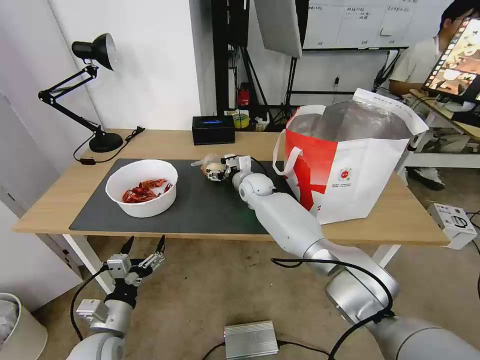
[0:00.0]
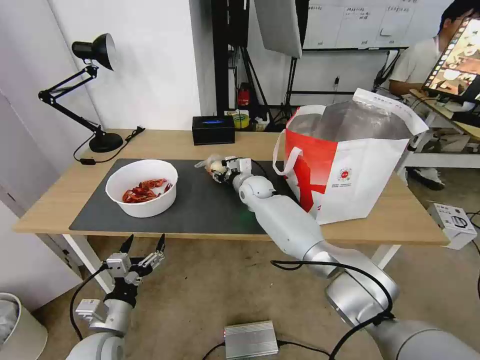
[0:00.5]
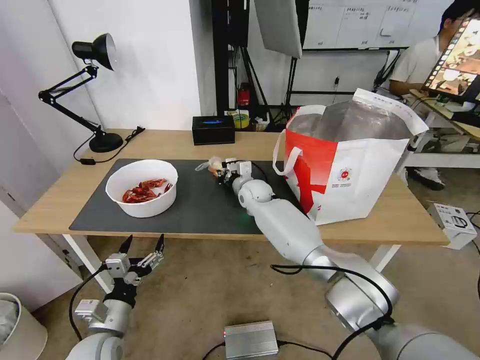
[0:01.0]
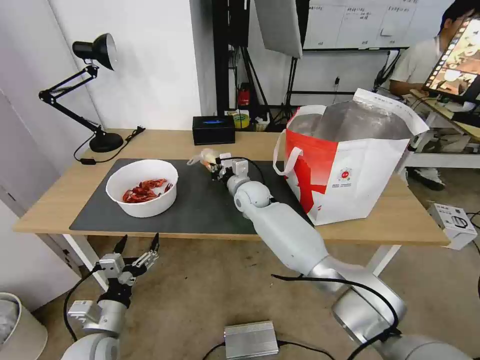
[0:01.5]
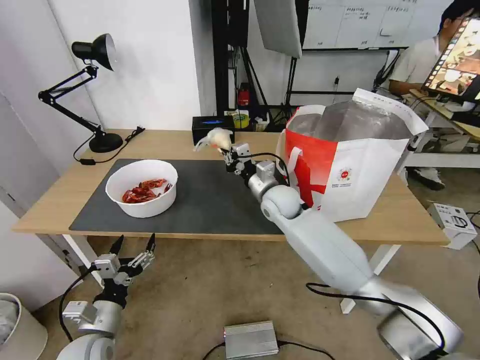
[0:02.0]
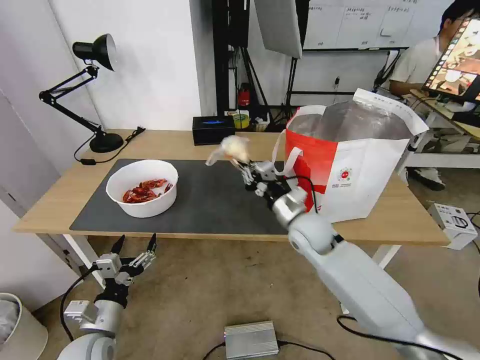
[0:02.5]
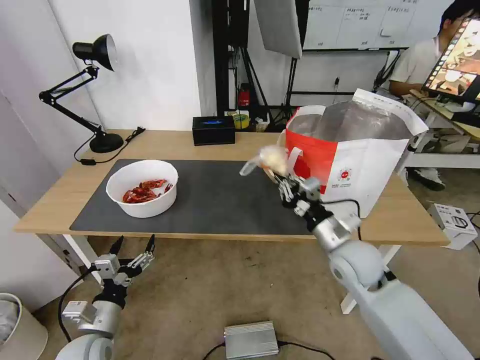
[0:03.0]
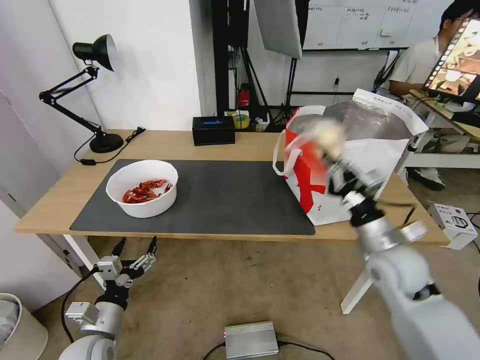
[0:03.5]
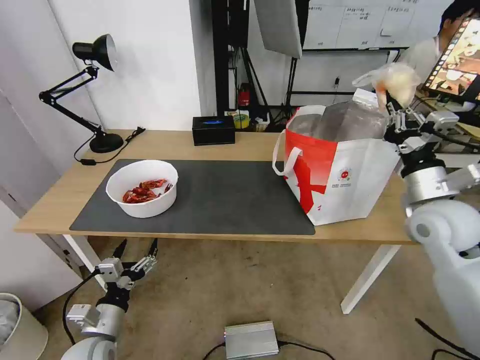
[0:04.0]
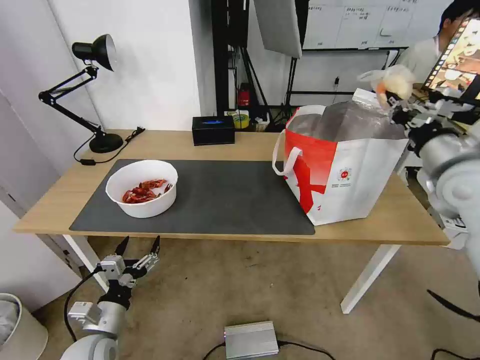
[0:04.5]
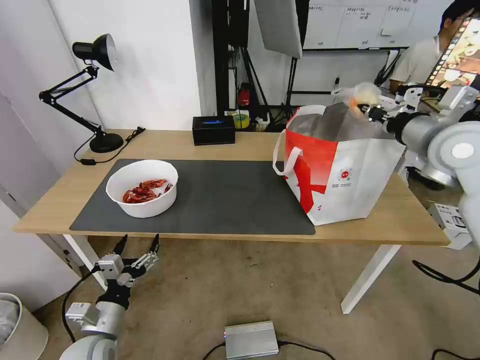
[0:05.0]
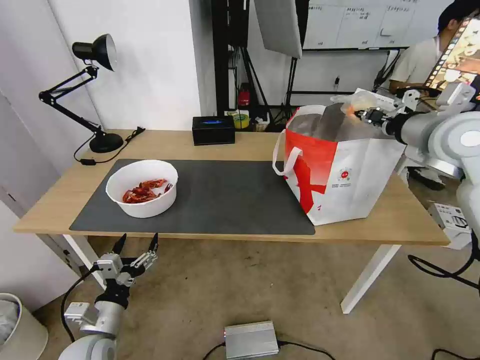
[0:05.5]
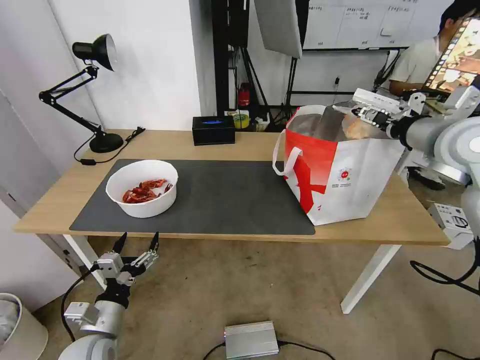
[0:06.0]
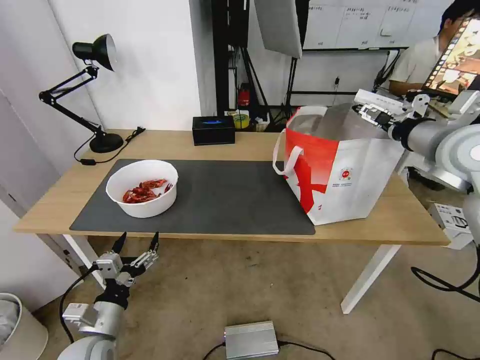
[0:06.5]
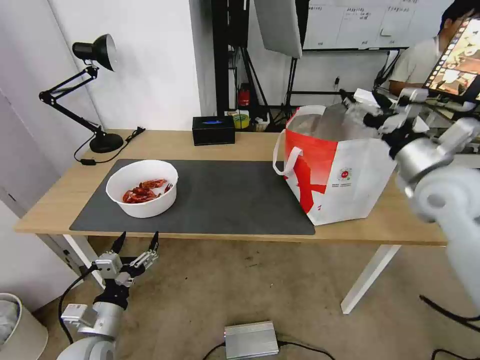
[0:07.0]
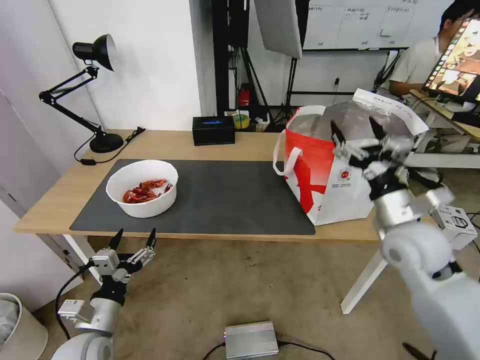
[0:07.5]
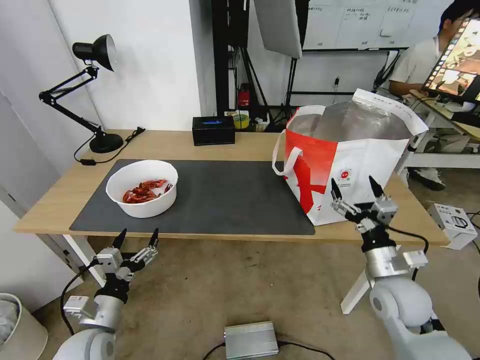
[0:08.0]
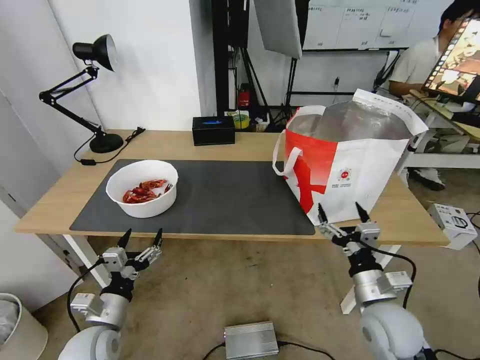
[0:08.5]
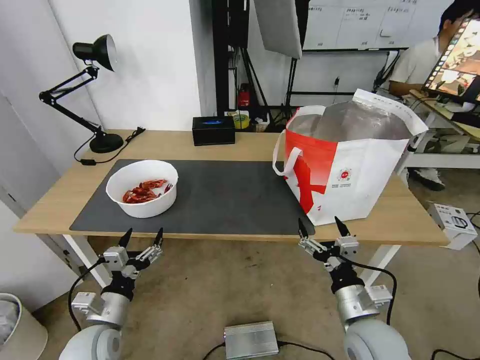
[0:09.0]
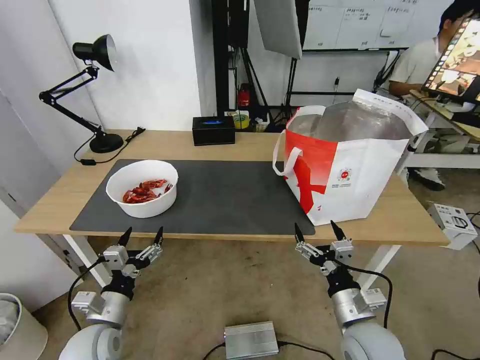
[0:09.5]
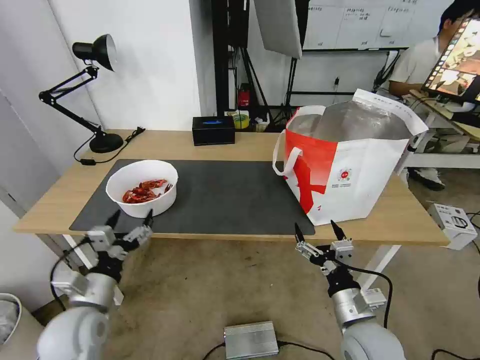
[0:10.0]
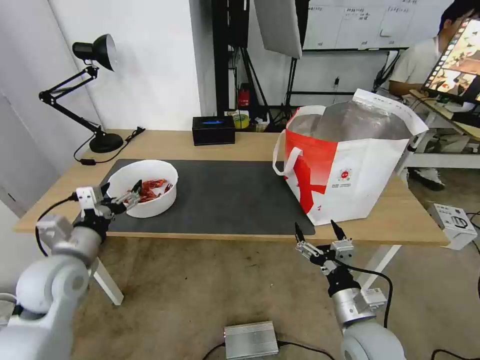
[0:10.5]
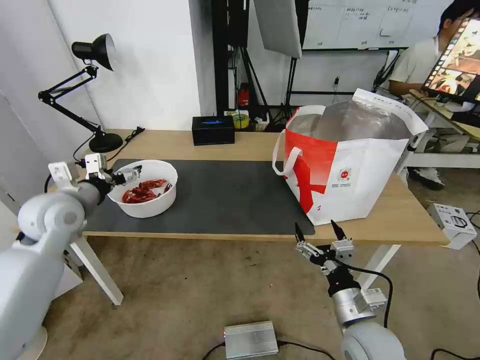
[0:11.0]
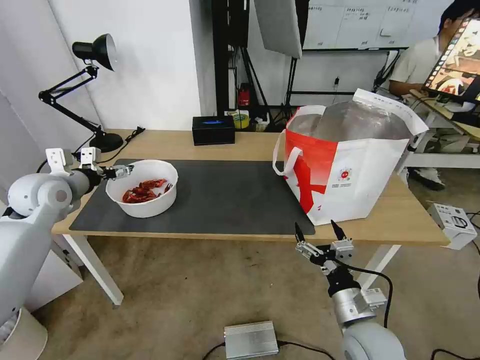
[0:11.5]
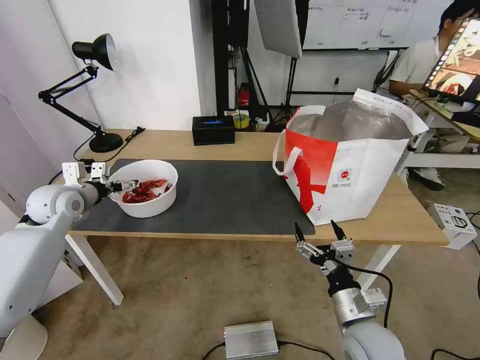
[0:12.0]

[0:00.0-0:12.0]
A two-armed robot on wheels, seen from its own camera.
Task of the whole recording: Pick up the trash from the table and place it into the takeout bag.
0:00.0 to 0:02.0: The right gripper shifts approximately 10 cm backward and to the right, and closes.
0:02.0 to 0:04.0: The right gripper moves to the right, backward and upward, roughly 30 cm.
0:04.0 to 0:06.0: The right gripper goes roughly 15 cm upward and forward, and opens up.
0:06.0 to 0:08.0: The right gripper goes roughly 30 cm downward and backward.
0:08.0 to 0:10.0: The left gripper goes some 5 cm upward. The right gripper shifts roughly 10 cm to the left and backward.
0:10.0 to 0:12.0: The left gripper goes about 25 cm forward, to the left and upward.

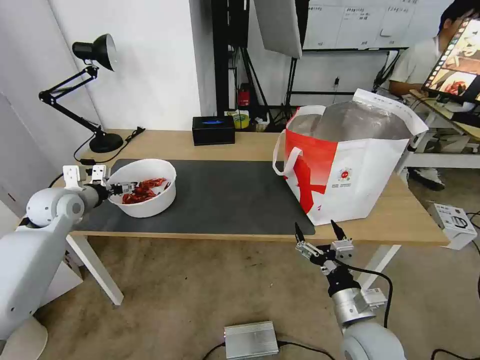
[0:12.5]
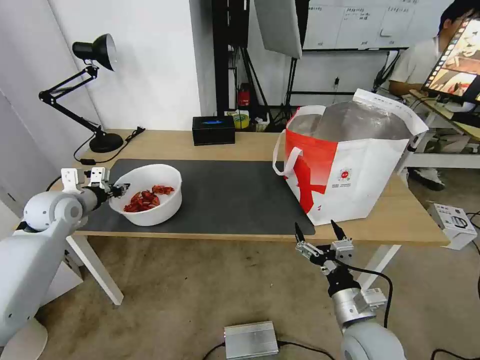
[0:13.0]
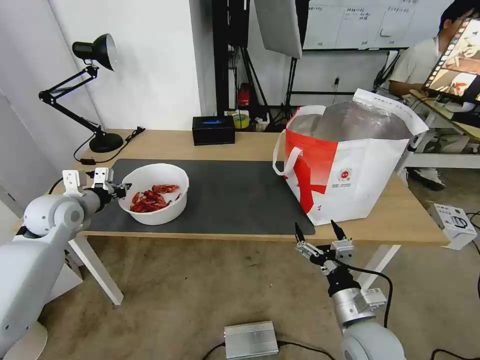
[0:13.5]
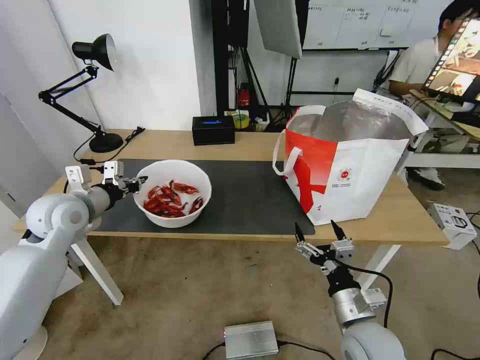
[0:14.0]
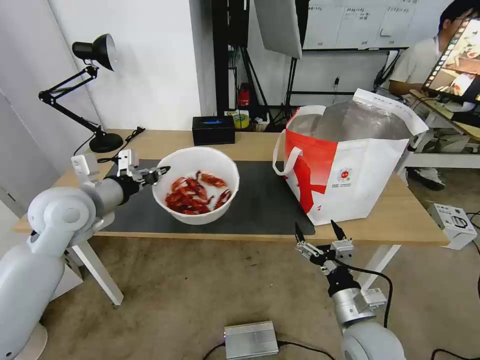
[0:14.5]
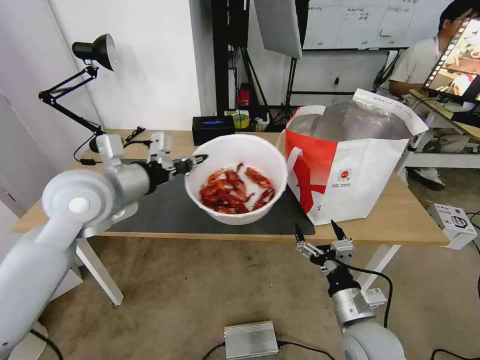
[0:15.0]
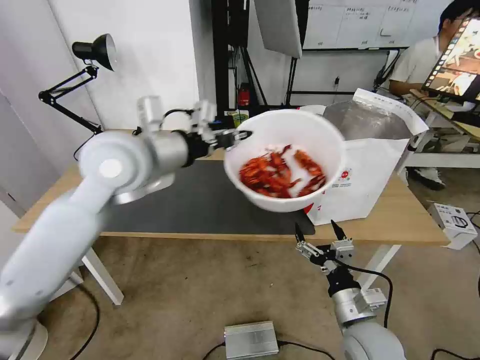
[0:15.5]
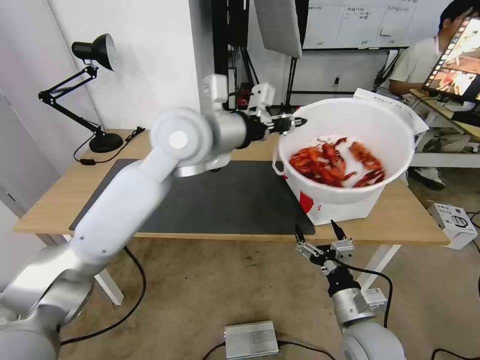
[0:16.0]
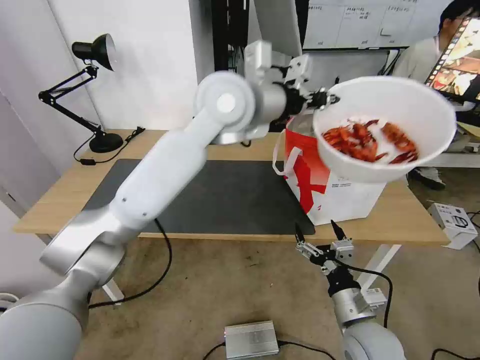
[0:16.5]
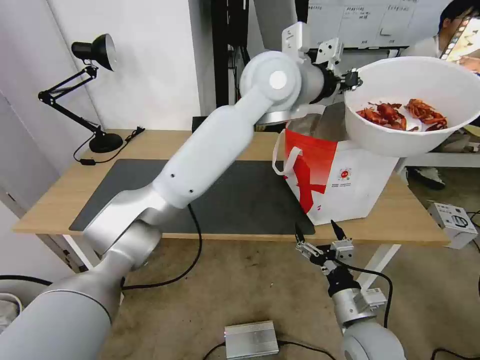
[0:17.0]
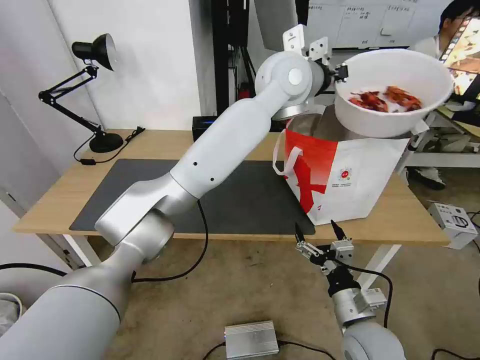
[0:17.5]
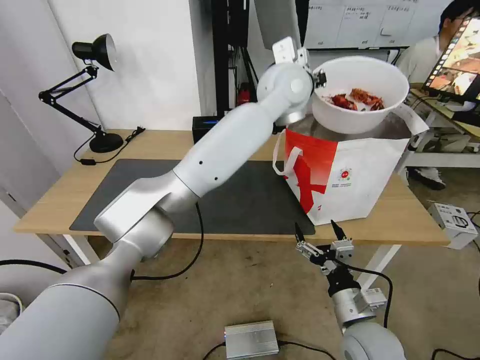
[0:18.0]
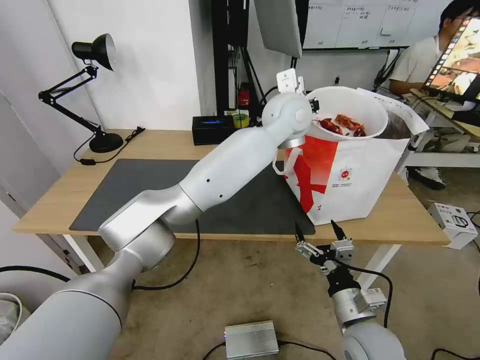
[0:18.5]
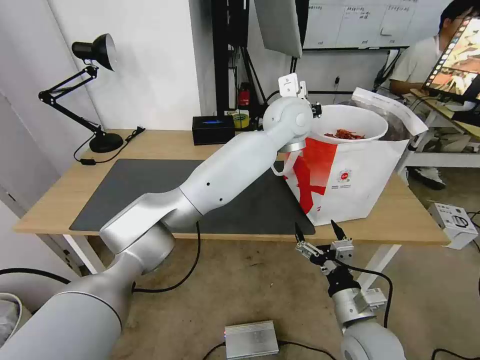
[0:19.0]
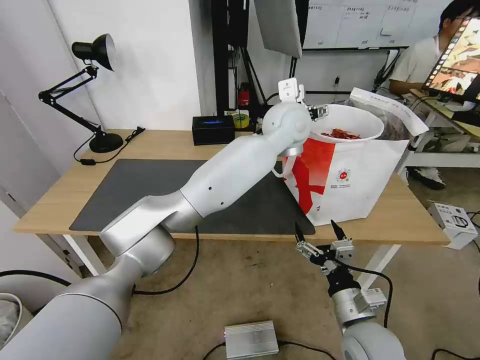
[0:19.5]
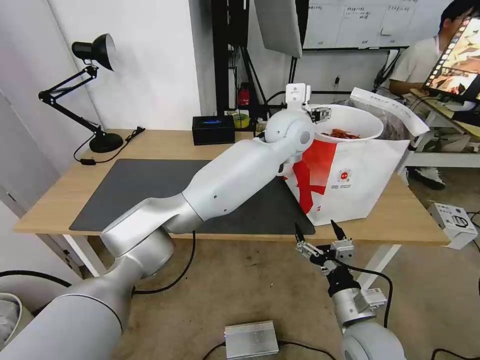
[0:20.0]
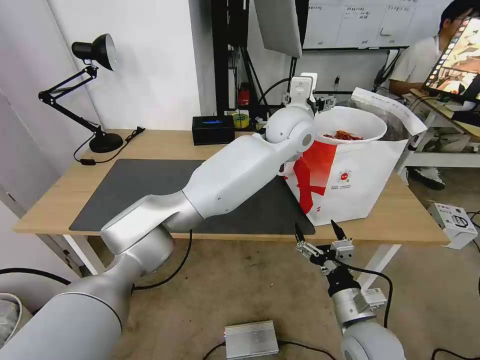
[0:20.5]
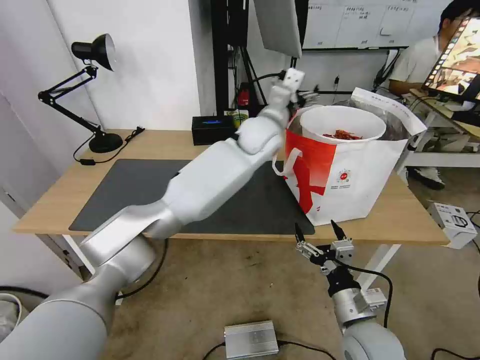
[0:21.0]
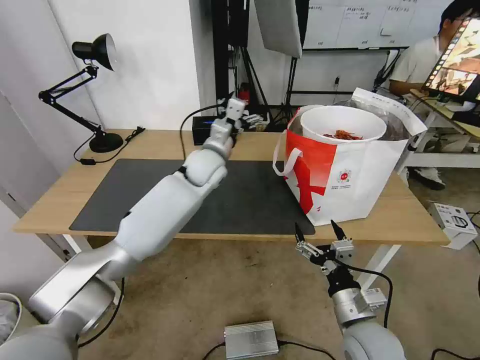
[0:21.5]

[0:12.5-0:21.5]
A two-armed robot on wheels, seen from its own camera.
Task of the whole recording: Pick up the trash from the table and place it into the takeout bag.
0:12.5 to 0:14.5: The left gripper goes some 15 cm to the right, backward and upward, and closes its fingers.
0:14.5 to 0:17.0: The left gripper shifts about 40 cm to the right and upward.
0:17.0 to 0:19.5: The left gripper goes approximately 10 cm downward, and opens its fingers.
0:19.5 to 0:21.5: The left gripper travels to the left and downward by approximately 20 cm.

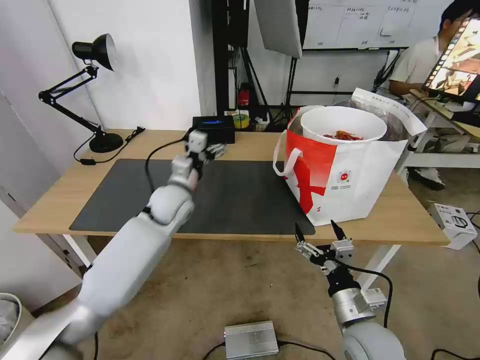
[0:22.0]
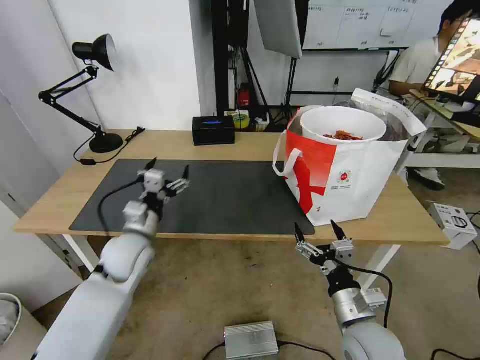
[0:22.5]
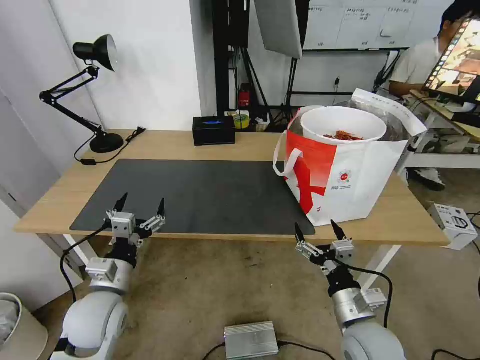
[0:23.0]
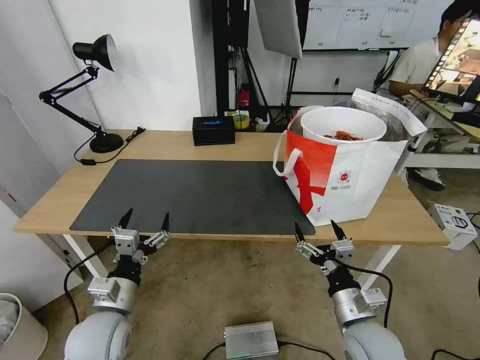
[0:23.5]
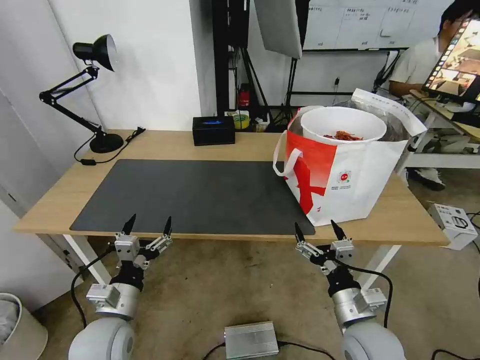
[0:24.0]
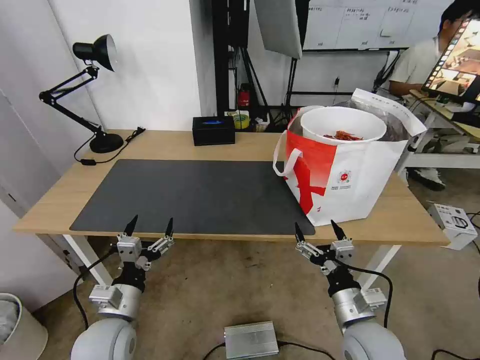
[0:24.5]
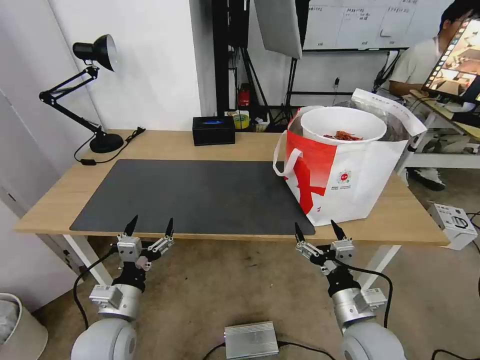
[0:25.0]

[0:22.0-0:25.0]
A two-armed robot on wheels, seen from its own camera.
Task of the whole recording: Pick up the trash from the table and place it into the takeout bag.
0:22.0 to 0:23.5: The left gripper shifts about 25 cm backward.
0:23.5 to 0:25.0: The grippers move only a little.

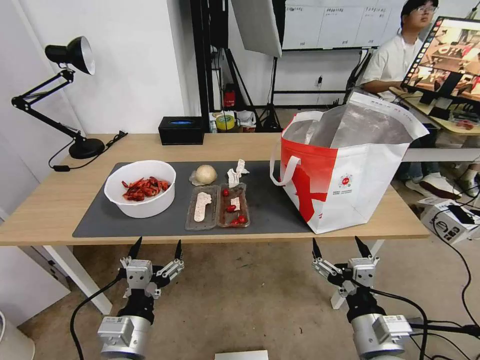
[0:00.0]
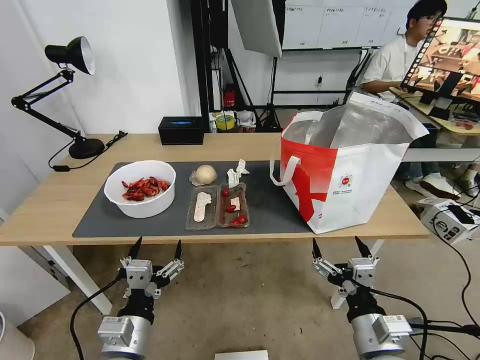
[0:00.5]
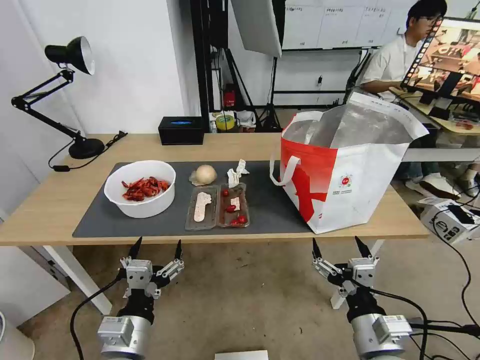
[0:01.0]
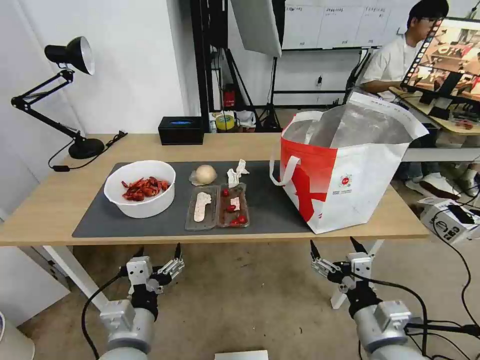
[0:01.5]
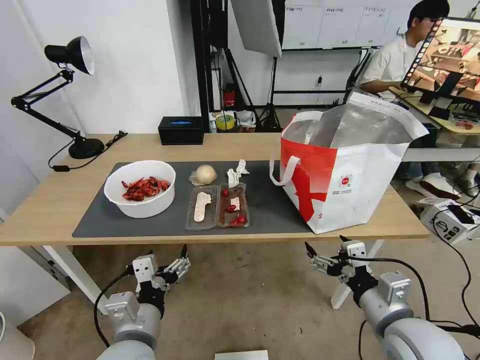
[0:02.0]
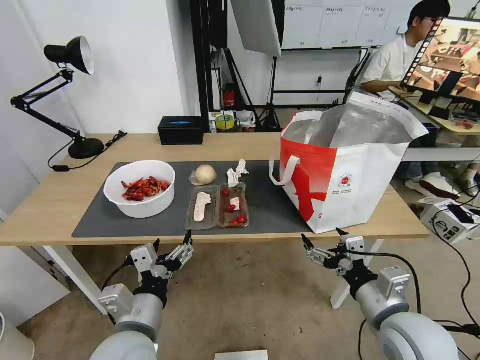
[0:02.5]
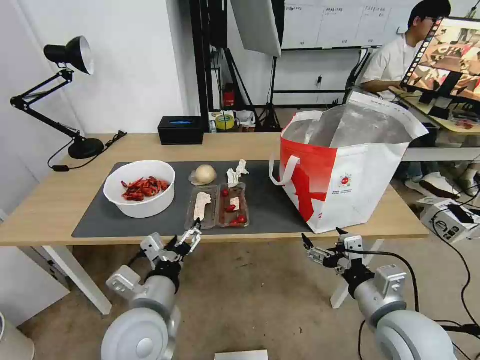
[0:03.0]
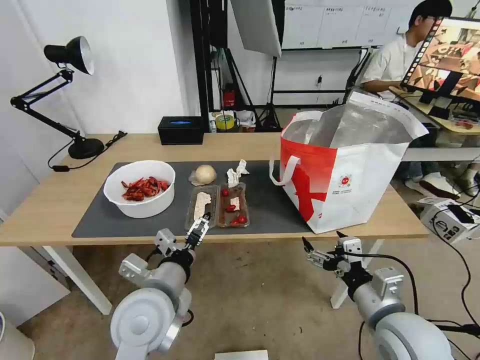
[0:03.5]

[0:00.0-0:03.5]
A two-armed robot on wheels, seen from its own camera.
Task of the whole recording: Pick up the trash from the table and place it into the takeout bag.
0:02.0 to 0:03.5: The left gripper heads forward, covering roughly 5 cm.
